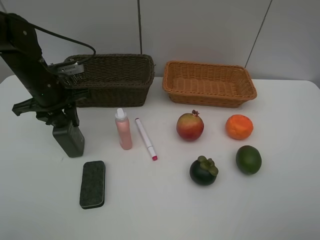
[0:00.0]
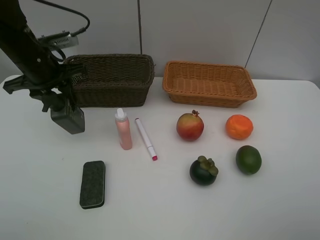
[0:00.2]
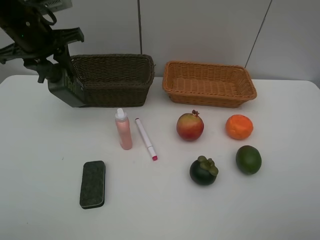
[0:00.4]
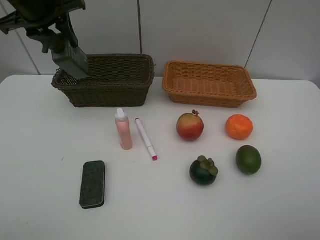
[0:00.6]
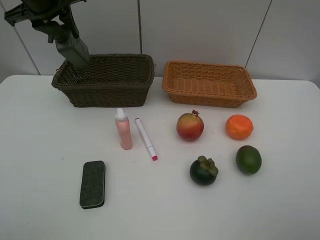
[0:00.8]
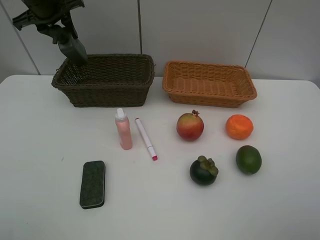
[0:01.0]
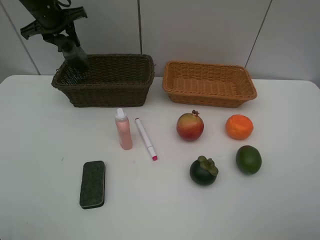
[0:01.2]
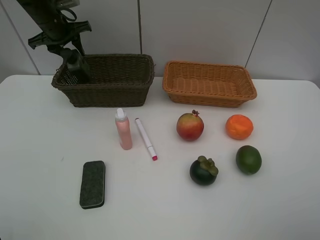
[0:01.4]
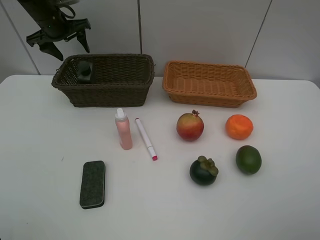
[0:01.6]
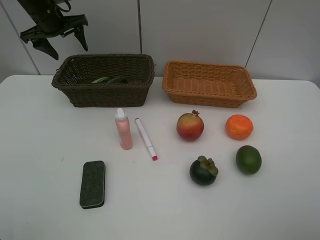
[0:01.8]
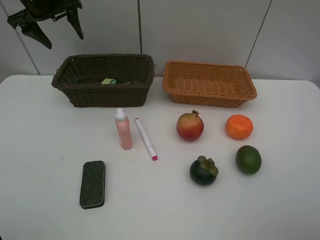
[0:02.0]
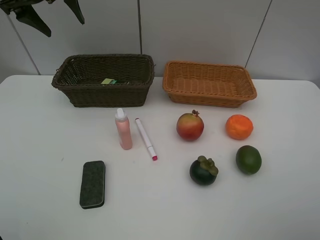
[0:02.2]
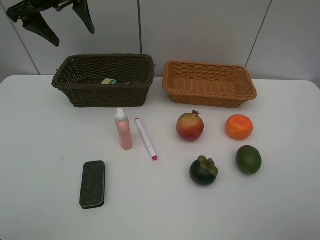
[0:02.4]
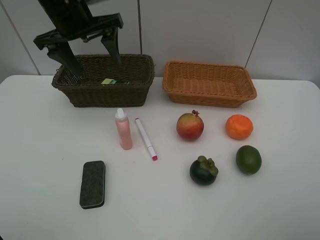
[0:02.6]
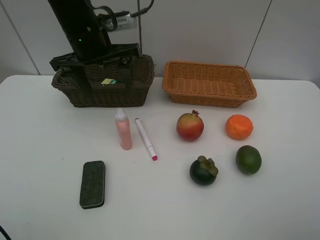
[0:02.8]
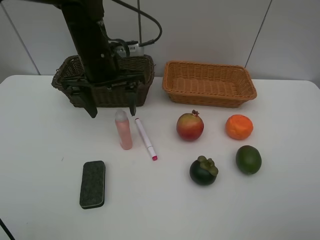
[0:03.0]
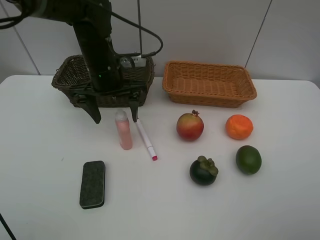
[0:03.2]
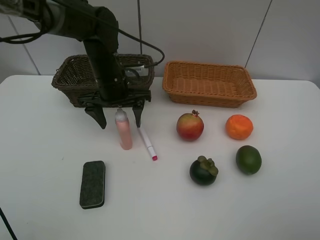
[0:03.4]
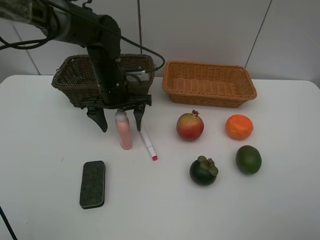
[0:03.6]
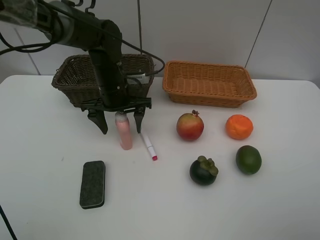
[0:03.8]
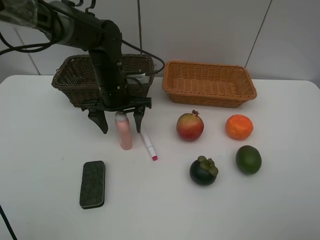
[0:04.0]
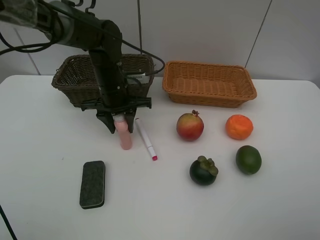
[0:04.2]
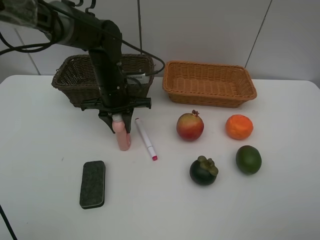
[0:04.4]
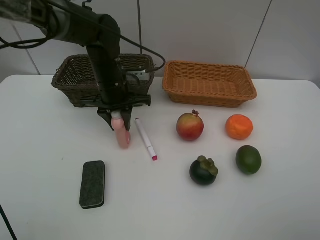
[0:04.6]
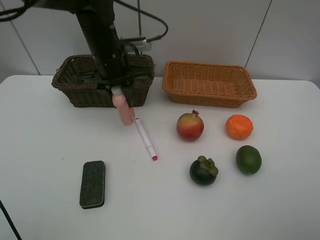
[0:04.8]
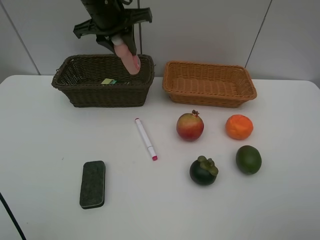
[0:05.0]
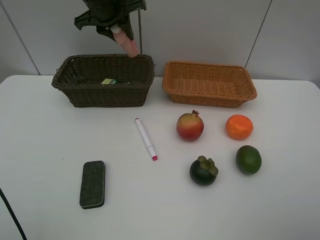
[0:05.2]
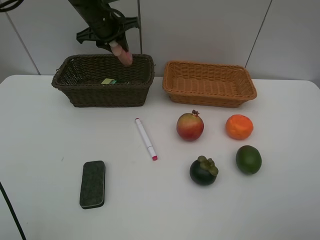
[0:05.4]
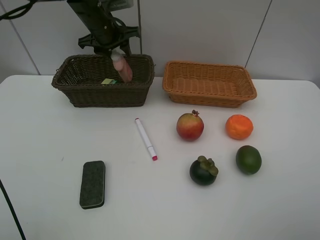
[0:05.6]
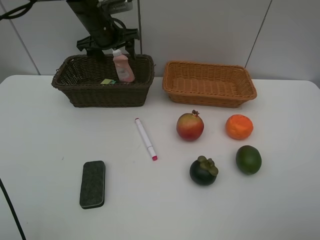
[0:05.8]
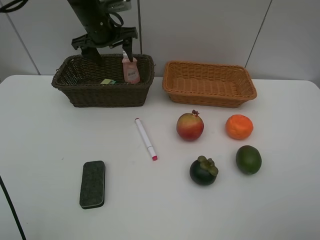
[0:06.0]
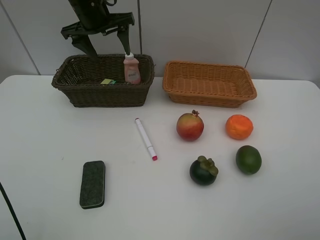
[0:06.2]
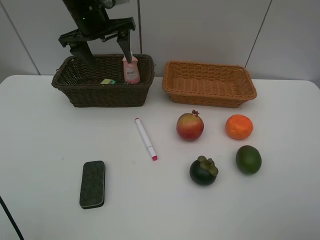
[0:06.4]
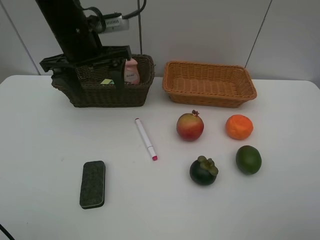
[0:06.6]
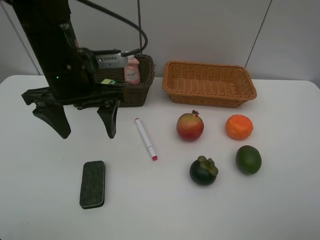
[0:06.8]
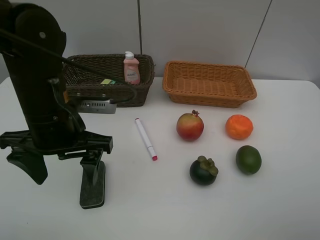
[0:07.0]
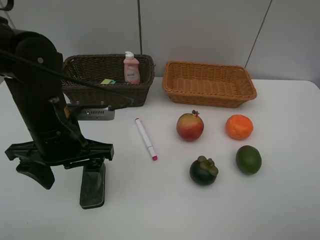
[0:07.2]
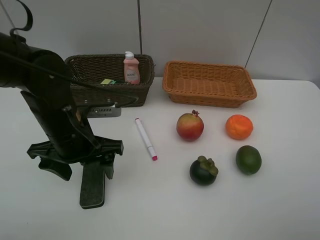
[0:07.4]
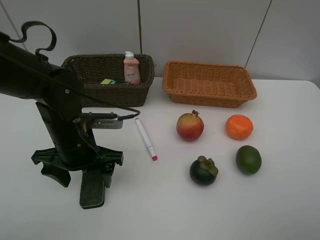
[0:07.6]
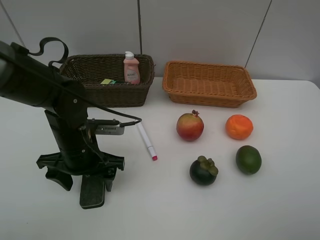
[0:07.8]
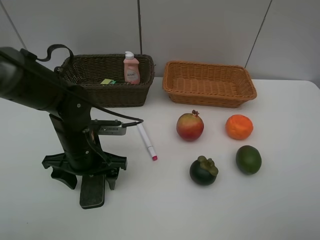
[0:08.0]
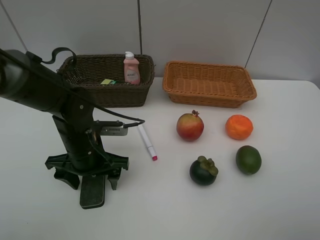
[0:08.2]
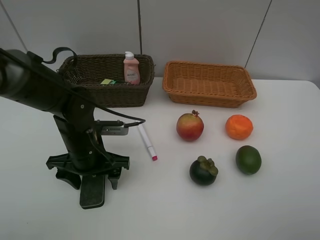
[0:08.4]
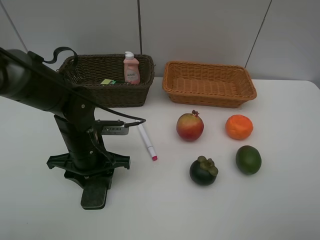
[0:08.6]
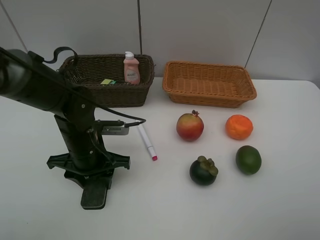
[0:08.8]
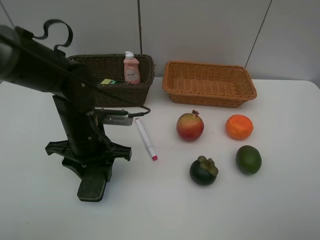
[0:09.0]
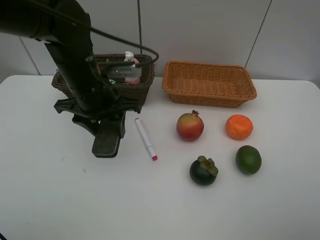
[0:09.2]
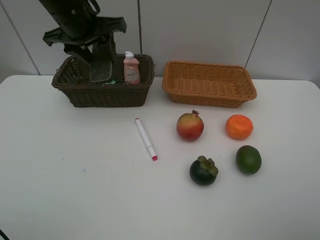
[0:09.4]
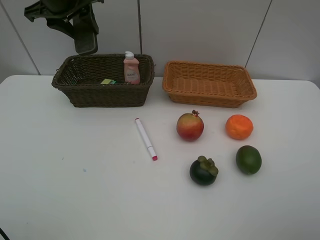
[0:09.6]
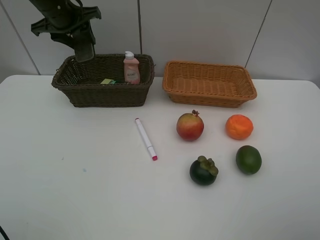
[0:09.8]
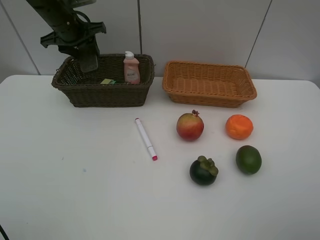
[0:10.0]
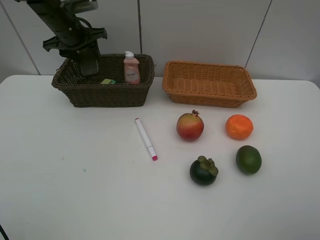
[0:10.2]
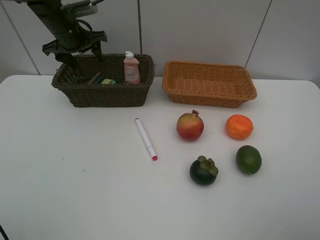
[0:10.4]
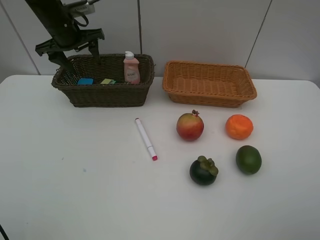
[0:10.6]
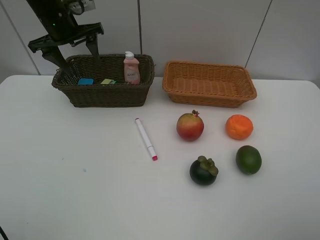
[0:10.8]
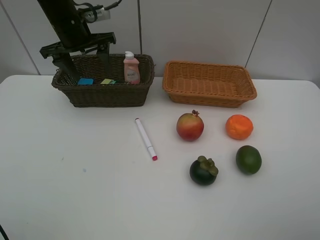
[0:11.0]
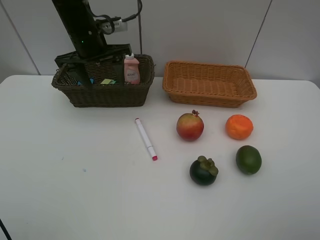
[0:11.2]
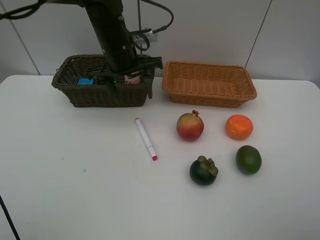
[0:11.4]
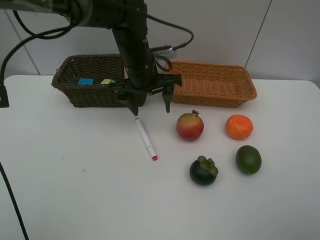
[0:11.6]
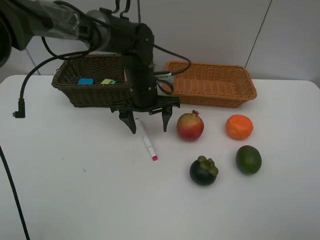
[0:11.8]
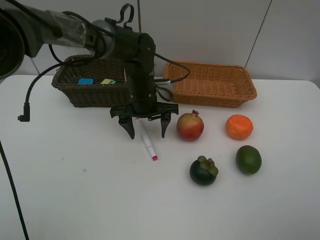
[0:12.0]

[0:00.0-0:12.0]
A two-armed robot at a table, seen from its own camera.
Task of the whole recording: Place multiple objects separately in different baskets.
Step, 0.2 to 1.8 s: Place the hard facial cleanser in the dark basket with left gripper.
Step, 2.0 to 4.6 s: Pick up the laundry detergent with left gripper.
Step, 4.8 to 6.0 s: Place the laundry detergent in the dark basket with left gripper.
Step, 6.2 to 9.0 s: Pick up blackboard eraser with left gripper.
Step, 9.2 to 10.4 s: Place the blackboard eraser in the dark basket with left gripper.
0.0 to 1.6 s: The left gripper shifts approximately 20 cm forward and upward, and opens its fingers.
1.6 to 3.0 s: The left gripper shifts approximately 25 cm backward and to the right.
3.0 to 4.4 s: The left gripper heads downward, covering approximately 10 cm, and closes its fingers.
4.4 to 6.0 s: The left gripper moves forward and upward, approximately 15 cm, and opens up.
6.0 to 7.6 s: The left gripper goes approximately 25 cm backward and downward.
7.6 to 9.0 s: The left gripper closes up.
9.0 to 10.4 s: The left gripper heads forward and to the left, covering about 25 cm.
10.4 to 12.0 s: The left gripper moves to the right, backward and downward, roughly 25 cm.

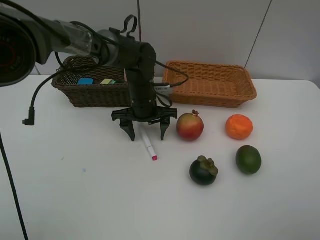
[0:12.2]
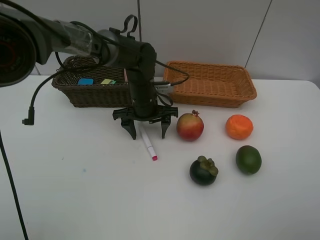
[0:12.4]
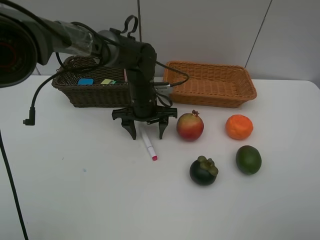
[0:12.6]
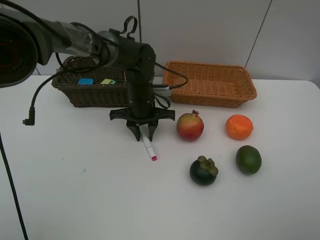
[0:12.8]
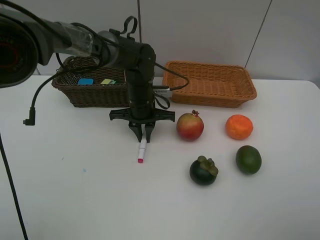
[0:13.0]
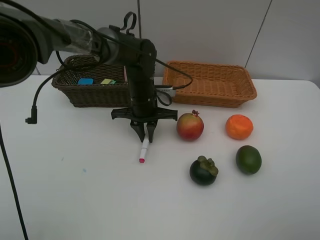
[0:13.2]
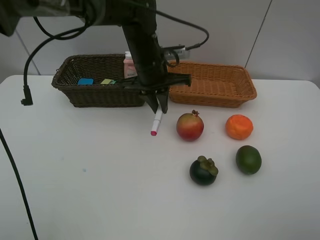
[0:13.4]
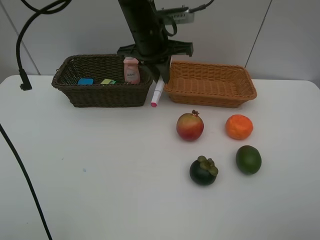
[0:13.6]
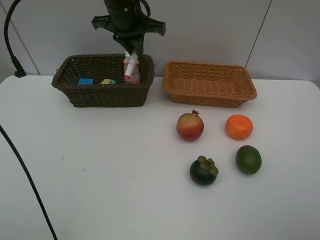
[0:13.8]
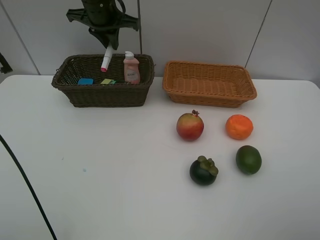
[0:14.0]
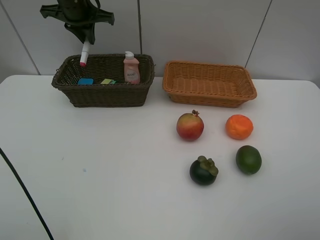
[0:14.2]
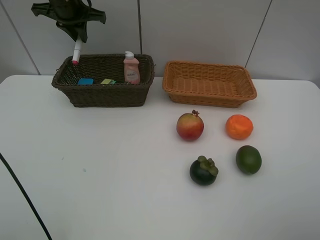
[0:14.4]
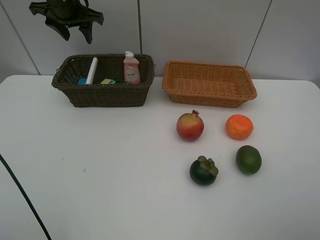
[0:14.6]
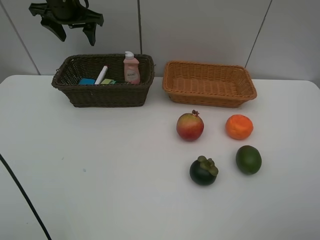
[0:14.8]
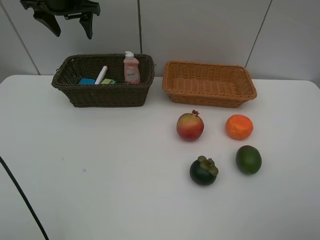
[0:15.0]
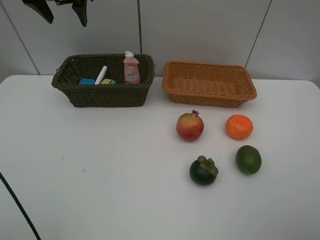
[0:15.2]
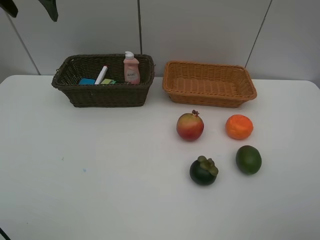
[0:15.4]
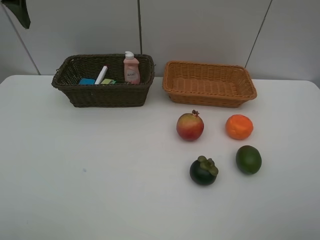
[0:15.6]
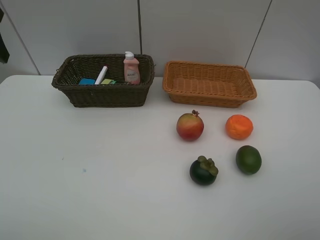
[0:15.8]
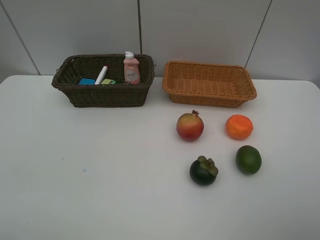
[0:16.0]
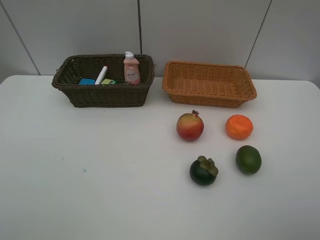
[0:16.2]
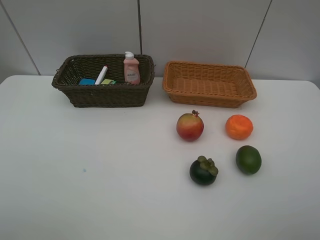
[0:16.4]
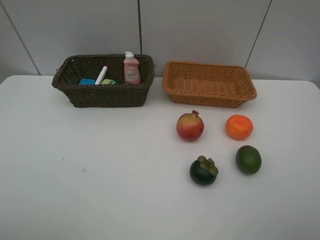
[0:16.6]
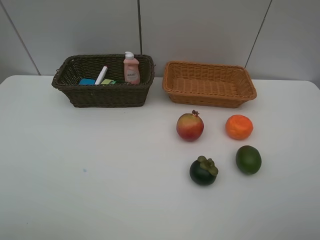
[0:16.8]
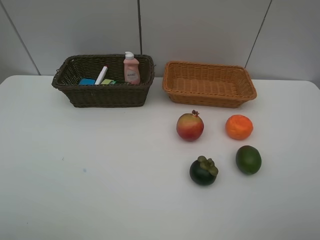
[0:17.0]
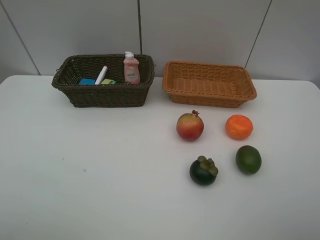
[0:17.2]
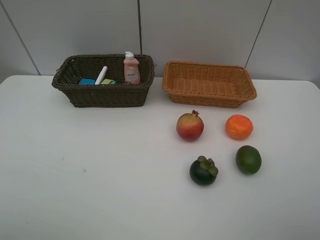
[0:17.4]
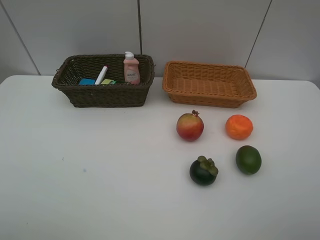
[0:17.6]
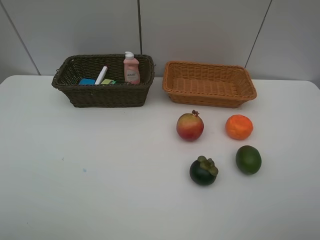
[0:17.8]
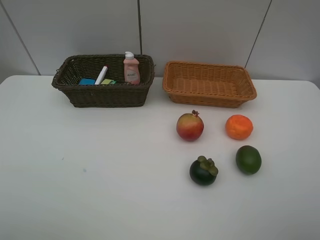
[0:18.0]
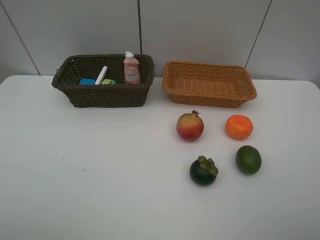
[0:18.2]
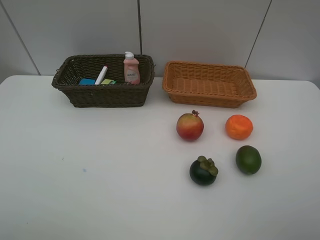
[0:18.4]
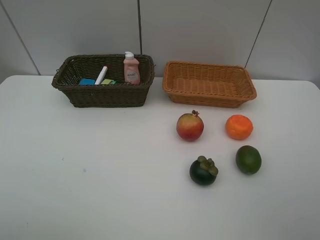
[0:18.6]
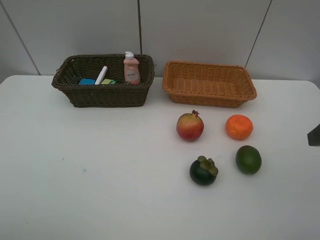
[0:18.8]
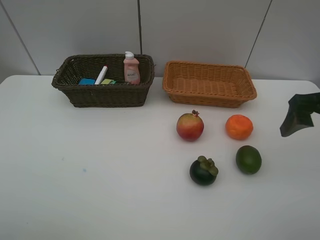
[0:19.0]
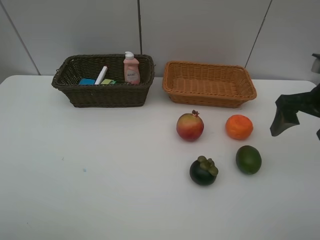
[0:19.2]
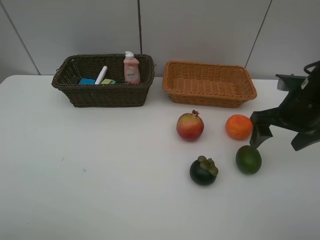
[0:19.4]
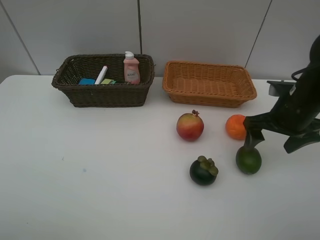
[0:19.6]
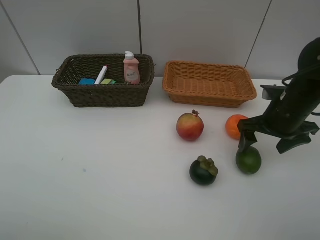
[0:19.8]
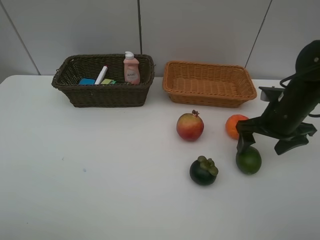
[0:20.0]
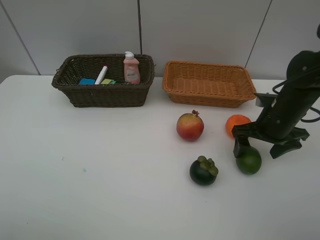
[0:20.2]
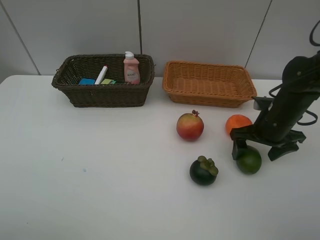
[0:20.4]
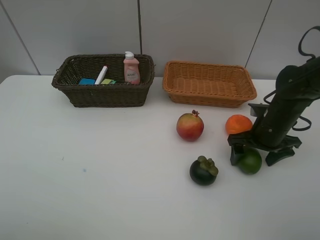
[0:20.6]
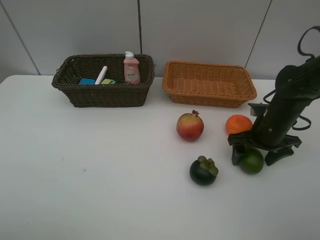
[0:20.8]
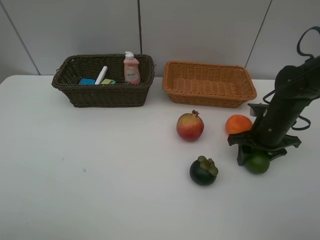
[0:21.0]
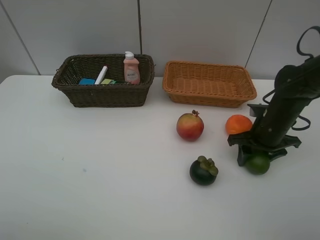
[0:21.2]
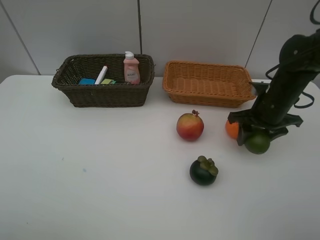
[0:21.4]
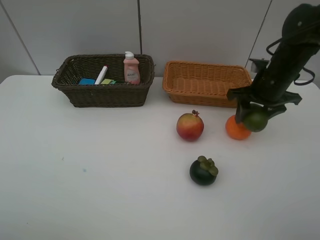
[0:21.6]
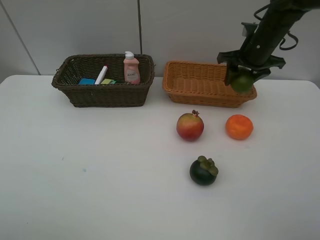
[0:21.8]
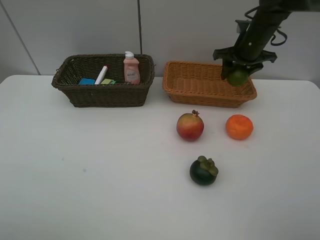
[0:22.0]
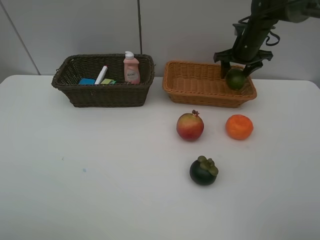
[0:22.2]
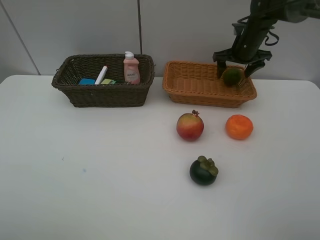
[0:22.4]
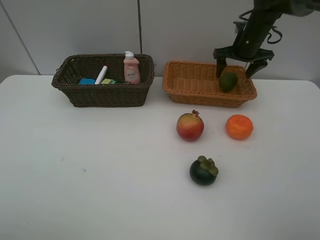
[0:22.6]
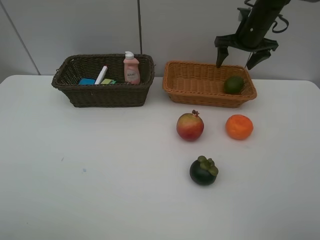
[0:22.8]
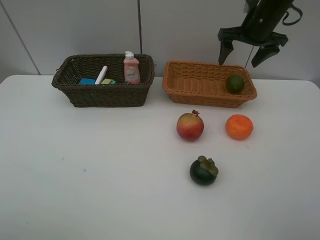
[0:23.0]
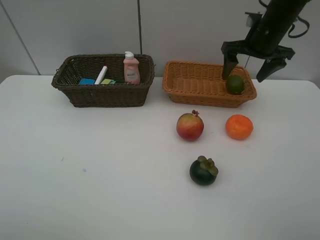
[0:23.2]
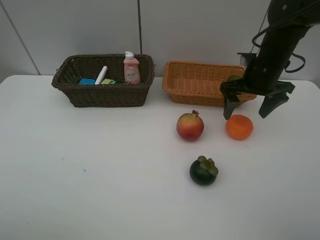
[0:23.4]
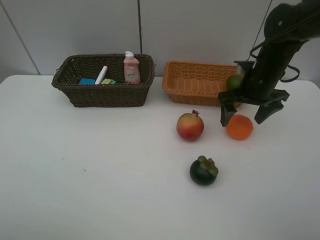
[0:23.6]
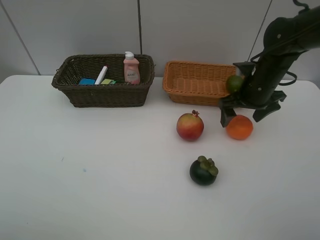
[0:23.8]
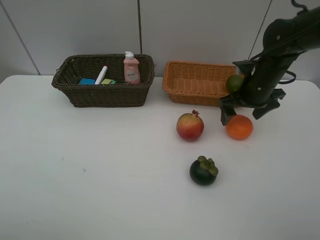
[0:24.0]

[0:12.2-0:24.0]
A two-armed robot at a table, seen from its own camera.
Task of the whole recording: Place multiple objects separately in different baskets.
Step, 13.4 to 14.8 s: Place the red marker in the dark basket with left gripper.
Step, 15.0 to 21.4 s: Pick up the lime with right gripper.
Step, 21.6 to 22.6 s: Place the lime in the light basket with right gripper.
12.2 to 13.6 s: The left gripper shifts approximately 15 cm upward, and closes.
13.6 to 15.2 s: The left gripper travels to the left and upward by roughly 20 cm, and opens its fingers.
15.2 to 16.6 s: The left gripper heads backward, covering some 40 cm.
18.2 to 19.6 s: The right gripper is displaced forward by some 25 cm, and opens.
19.6 to 21.0 s: The right gripper heads downward, covering about 10 cm, and closes up.
21.0 to 22.6 s: The right gripper shifts some 25 cm forward and upward, and opens its fingers.
22.6 to 24.0 s: The right gripper shifts about 15 cm backward.
